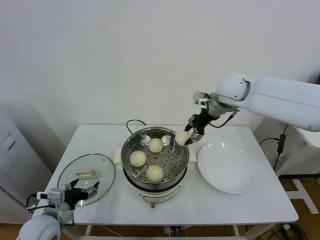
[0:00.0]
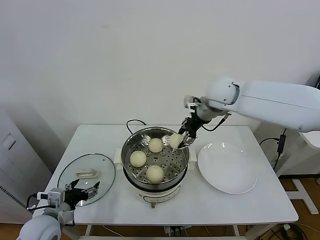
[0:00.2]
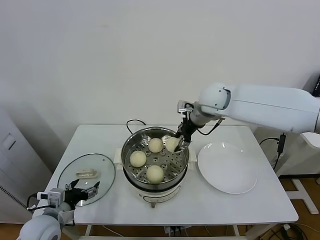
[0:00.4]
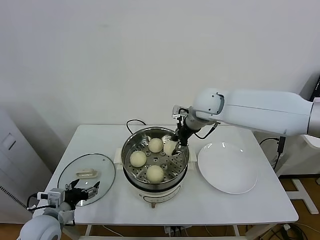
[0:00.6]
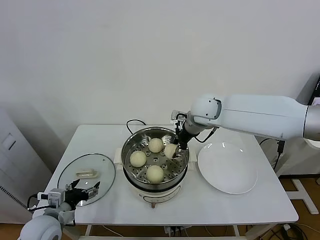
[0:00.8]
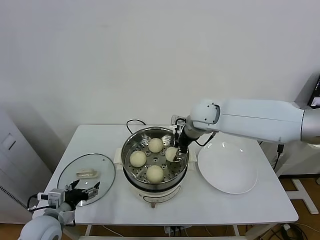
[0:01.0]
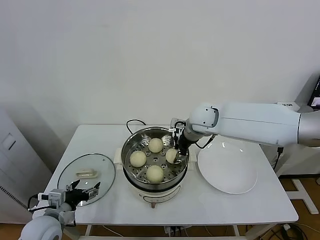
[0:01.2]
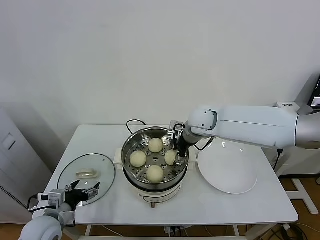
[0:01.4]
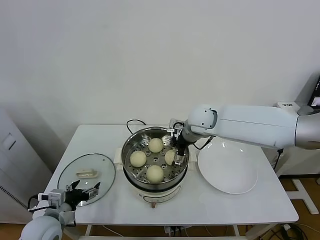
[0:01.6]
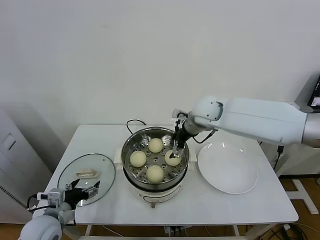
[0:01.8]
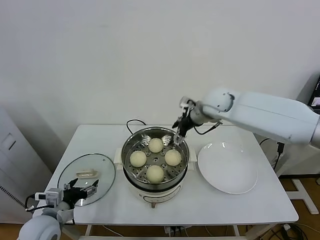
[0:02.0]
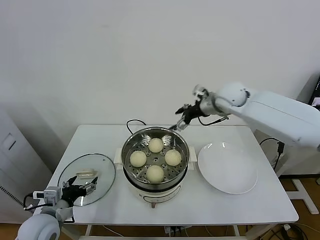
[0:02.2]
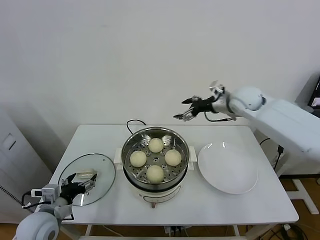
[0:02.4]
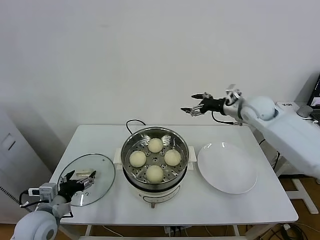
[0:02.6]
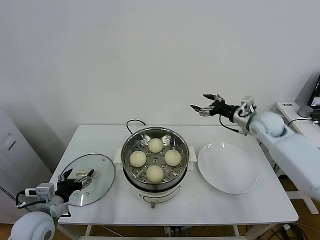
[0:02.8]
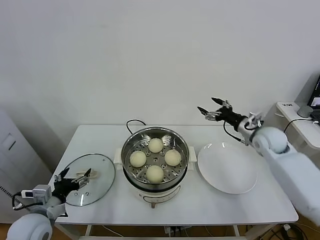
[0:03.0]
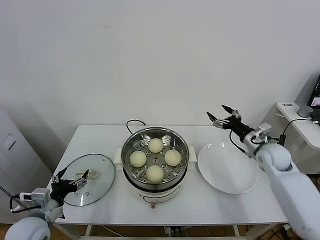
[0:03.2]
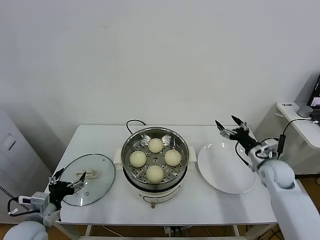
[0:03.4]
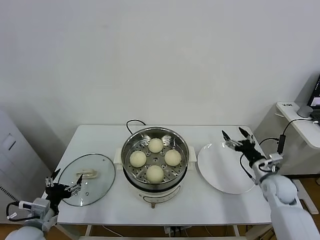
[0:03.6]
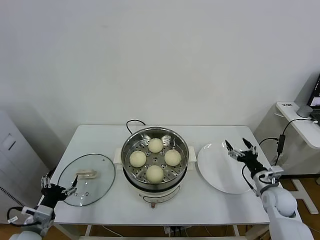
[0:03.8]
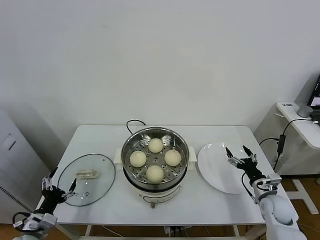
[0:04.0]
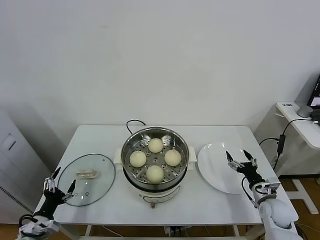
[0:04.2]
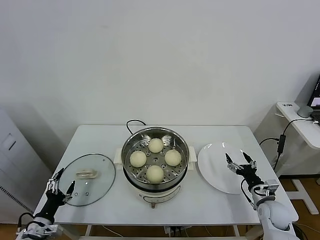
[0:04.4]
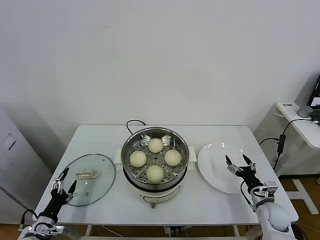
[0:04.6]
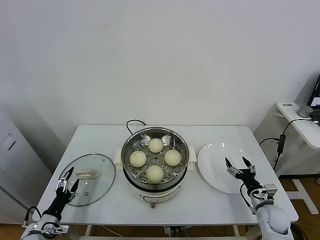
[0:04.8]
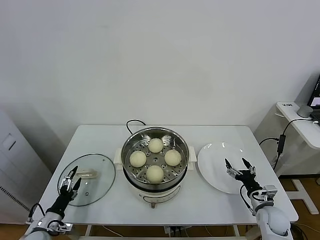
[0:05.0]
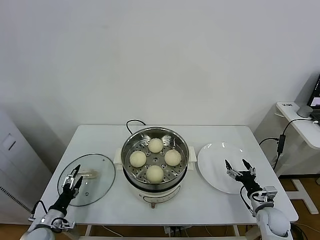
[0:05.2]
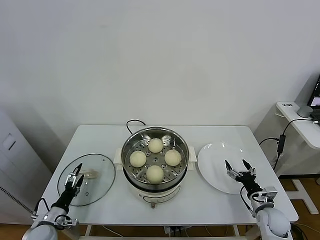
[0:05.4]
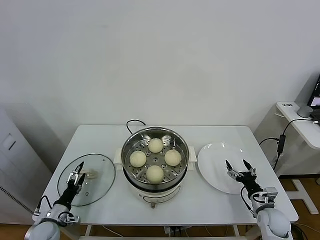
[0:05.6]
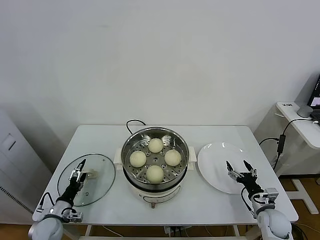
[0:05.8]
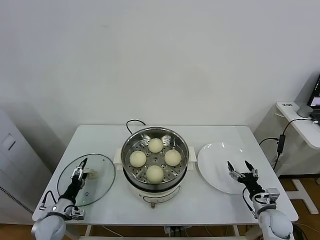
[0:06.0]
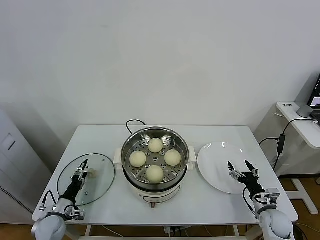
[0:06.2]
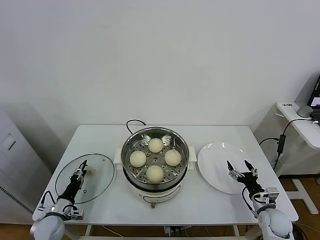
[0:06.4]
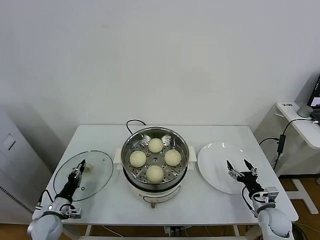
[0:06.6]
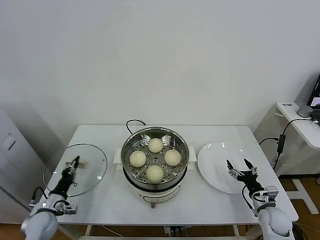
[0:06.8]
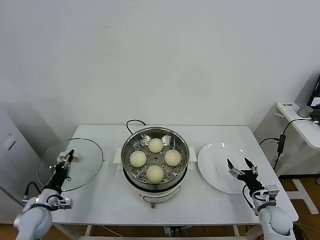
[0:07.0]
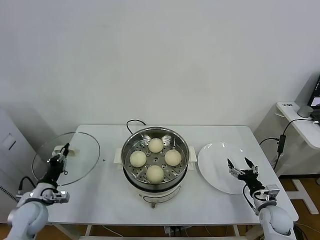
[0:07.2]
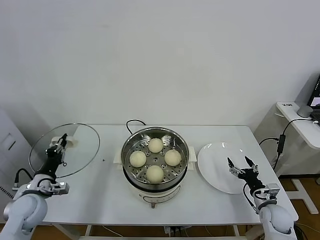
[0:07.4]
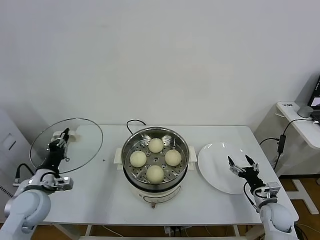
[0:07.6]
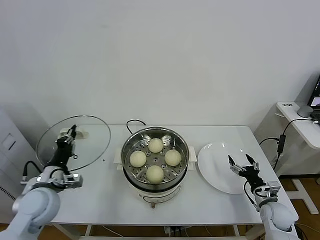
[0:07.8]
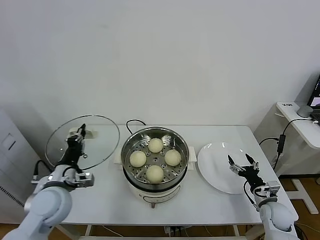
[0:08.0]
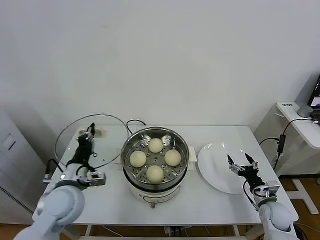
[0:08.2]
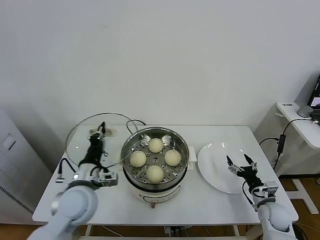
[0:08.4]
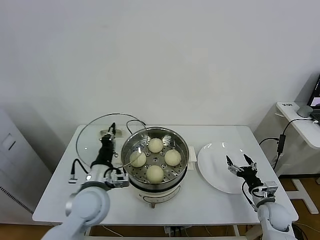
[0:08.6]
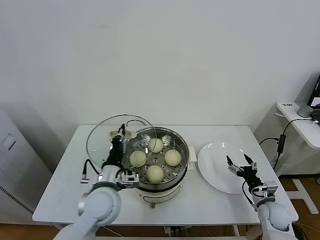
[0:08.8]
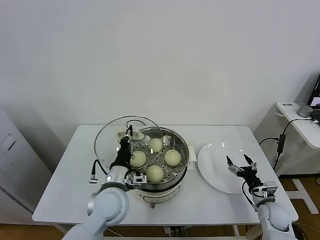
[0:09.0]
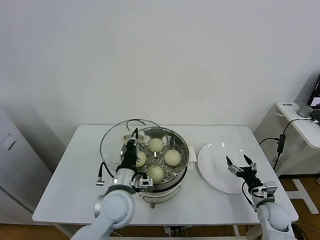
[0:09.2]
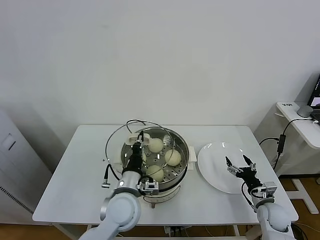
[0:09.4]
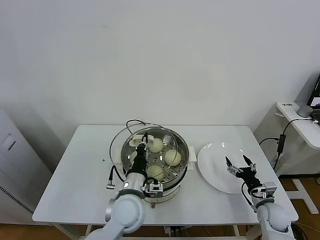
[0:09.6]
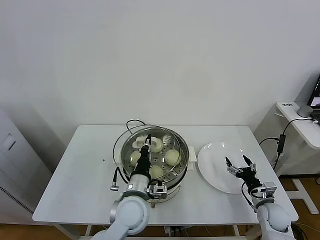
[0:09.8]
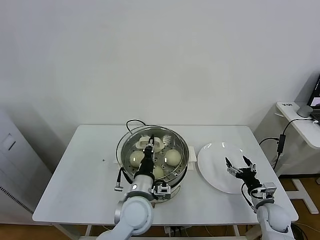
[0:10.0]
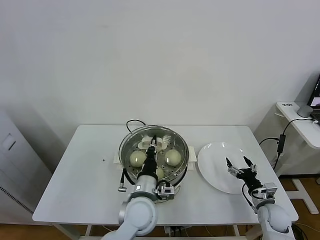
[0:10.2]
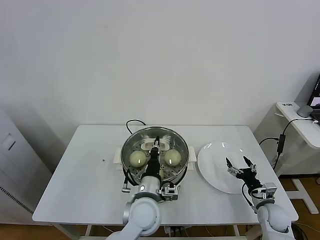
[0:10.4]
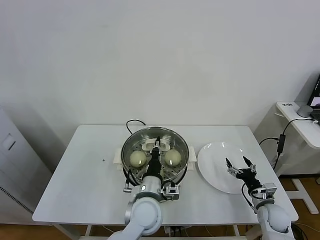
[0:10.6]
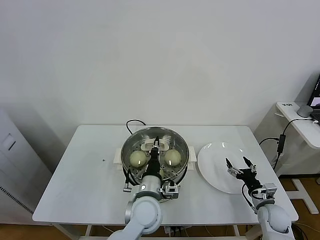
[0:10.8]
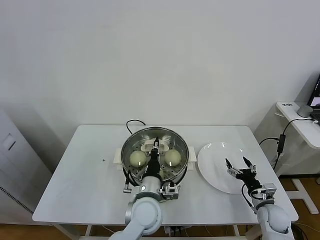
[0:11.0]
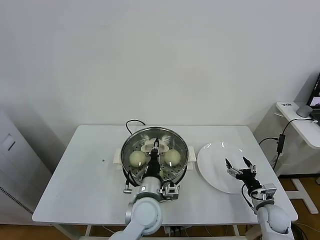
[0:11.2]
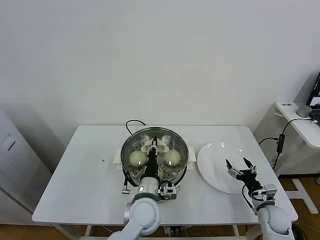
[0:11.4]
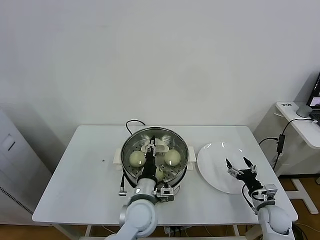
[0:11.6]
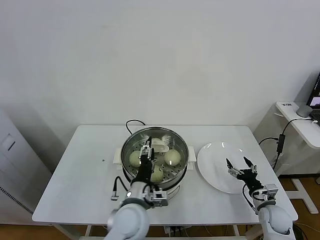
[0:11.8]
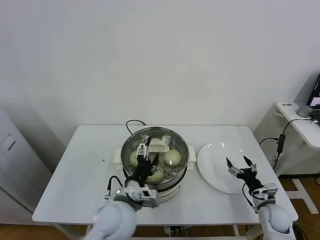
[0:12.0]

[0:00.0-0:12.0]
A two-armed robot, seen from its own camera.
Task of the whole recording: take steamed baozi put them in steamer.
Step, 0:00.0 to 0:01.8: Place the baozi on the steamer with right gripper.
Step, 0:02.0 to 0:07.0: Grasp the pot lid with left gripper.
Step, 0:07.2 to 0:12.0: Place the pot lid on the steamer with left gripper.
0:00.0 to 0:01.6: The right gripper goes roughly 15 cm downward and to the left, and opens up.
0:01.6 to 0:03.0: The right gripper heads to the right, covering approximately 25 cm.
0:03.0 to 0:04.4: The left gripper travels downward and to the left by about 15 cm, while the right gripper moves downward and backward, approximately 30 cm.
0:04.4 to 0:06.0: The left gripper is displaced forward and downward by roughly 10 cm.
0:06.0 to 0:07.6: The left gripper travels upward by roughly 20 cm, and closes its fingers.
0:07.6 to 0:09.0: The left gripper travels to the right by approximately 25 cm.
0:09.0 to 0:10.4: The left gripper heads to the right, covering approximately 10 cm.
0:10.4 to 0:12.0: The left gripper shifts approximately 5 cm to the left, and opens up.

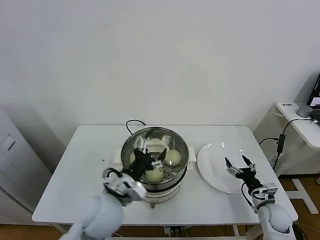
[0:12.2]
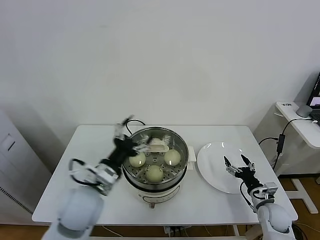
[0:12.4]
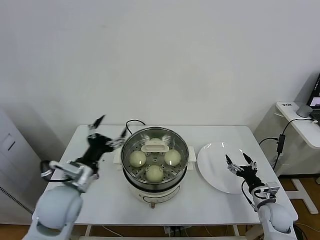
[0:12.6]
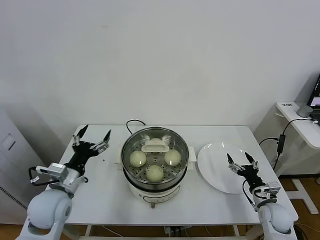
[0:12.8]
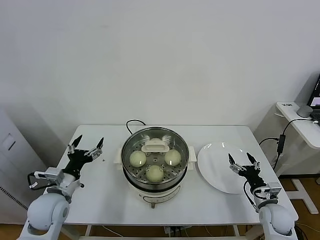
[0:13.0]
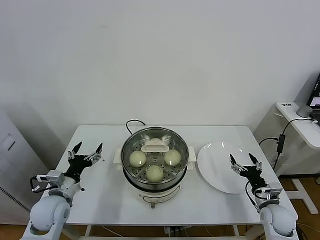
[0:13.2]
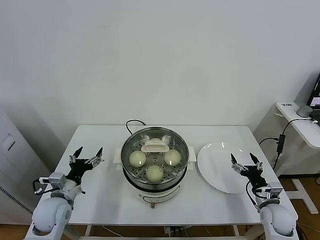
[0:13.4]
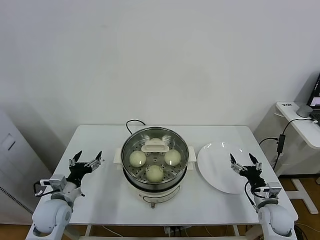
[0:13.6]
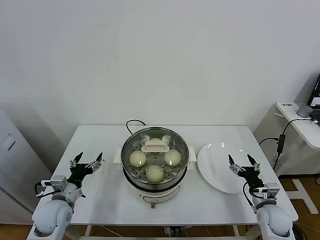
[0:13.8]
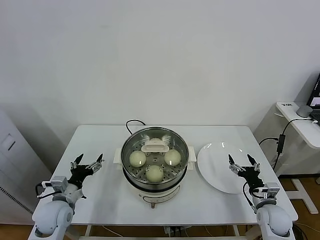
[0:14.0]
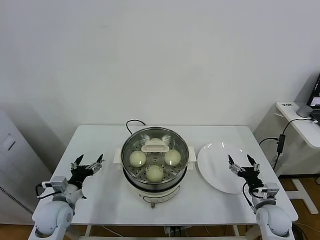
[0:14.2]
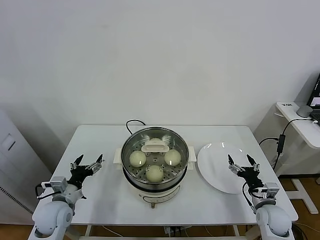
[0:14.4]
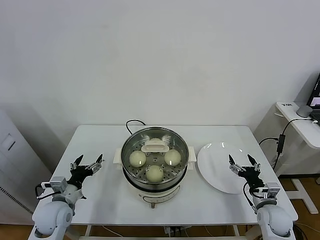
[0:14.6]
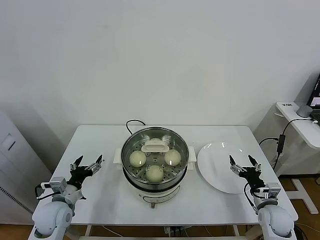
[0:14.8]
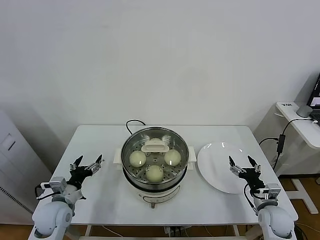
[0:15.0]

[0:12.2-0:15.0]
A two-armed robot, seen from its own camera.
Task of the whole recording: take steamed baozi put them in steamer.
0:12.2 to 0:13.6: The left gripper shifts approximately 25 cm to the left and downward.
0:13.6 to 0:15.0: The grippers move only a little.

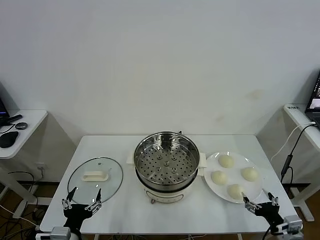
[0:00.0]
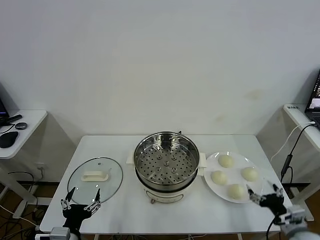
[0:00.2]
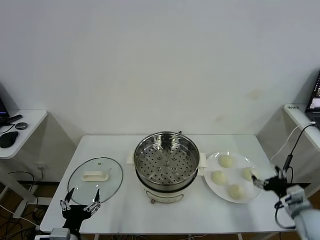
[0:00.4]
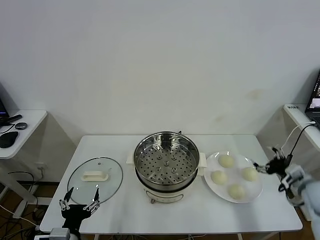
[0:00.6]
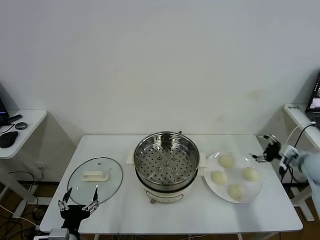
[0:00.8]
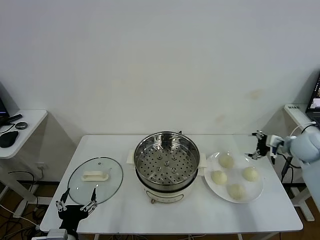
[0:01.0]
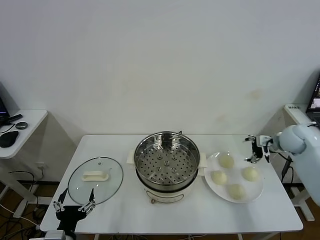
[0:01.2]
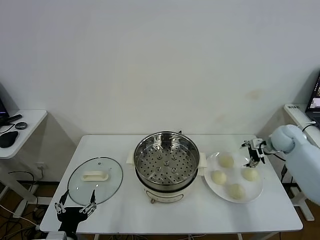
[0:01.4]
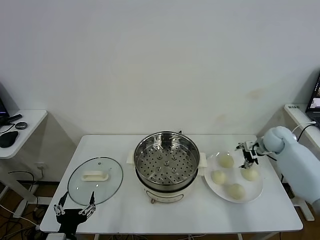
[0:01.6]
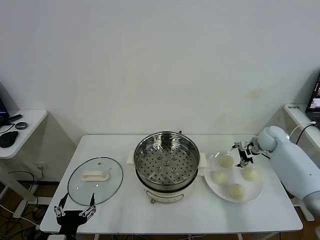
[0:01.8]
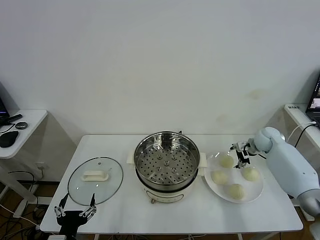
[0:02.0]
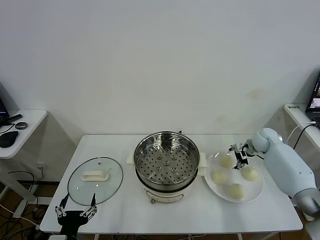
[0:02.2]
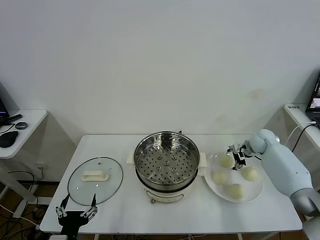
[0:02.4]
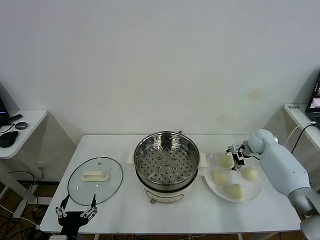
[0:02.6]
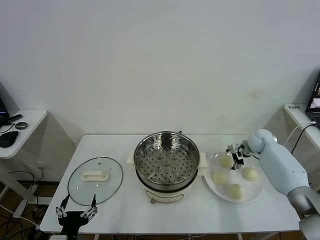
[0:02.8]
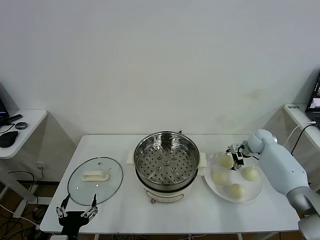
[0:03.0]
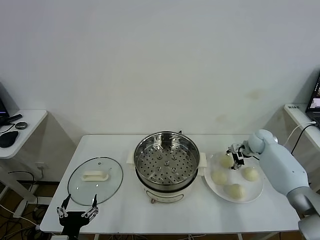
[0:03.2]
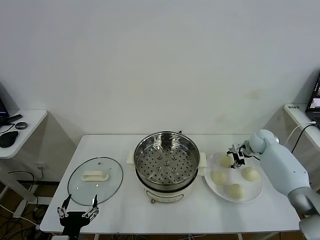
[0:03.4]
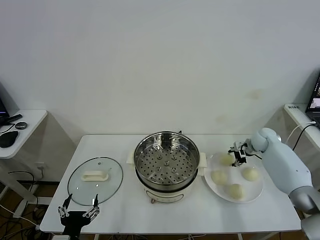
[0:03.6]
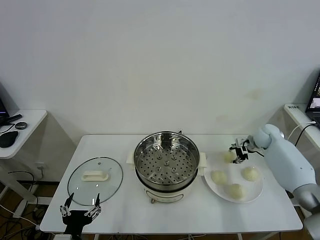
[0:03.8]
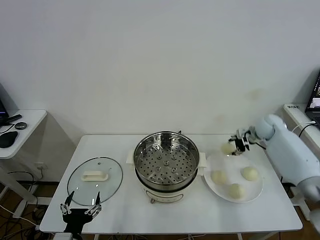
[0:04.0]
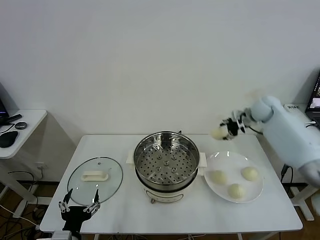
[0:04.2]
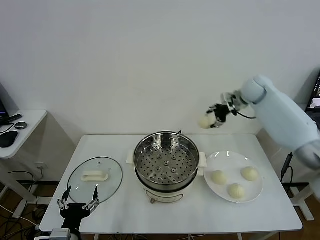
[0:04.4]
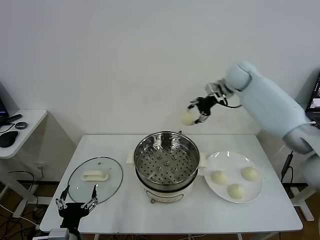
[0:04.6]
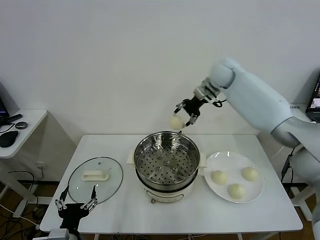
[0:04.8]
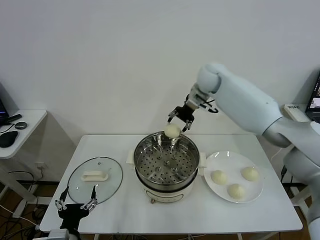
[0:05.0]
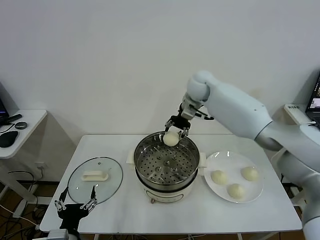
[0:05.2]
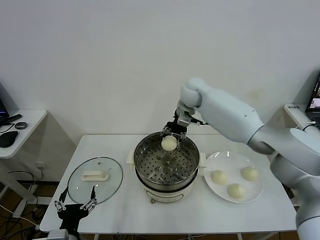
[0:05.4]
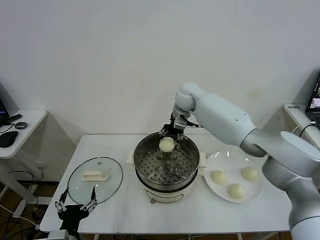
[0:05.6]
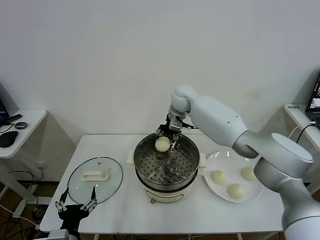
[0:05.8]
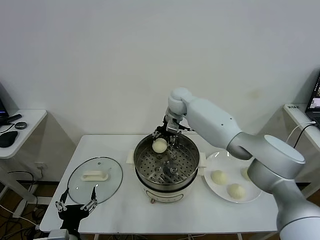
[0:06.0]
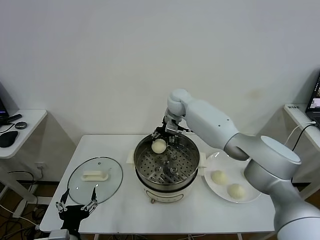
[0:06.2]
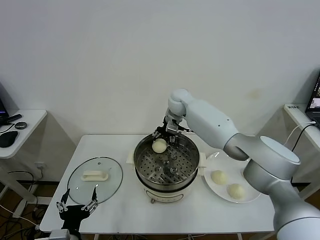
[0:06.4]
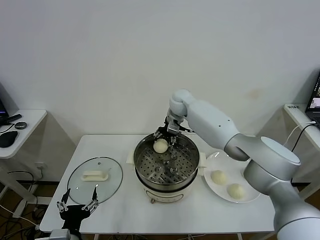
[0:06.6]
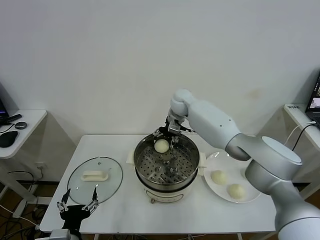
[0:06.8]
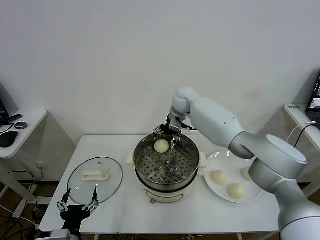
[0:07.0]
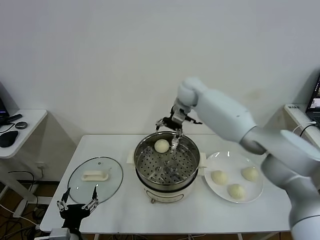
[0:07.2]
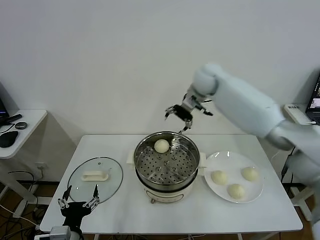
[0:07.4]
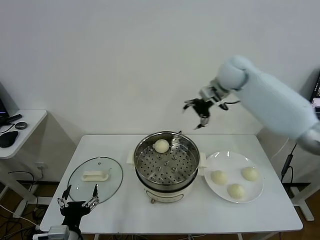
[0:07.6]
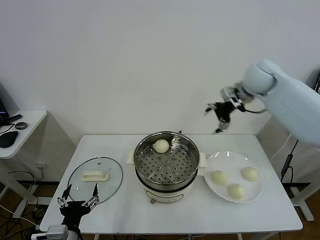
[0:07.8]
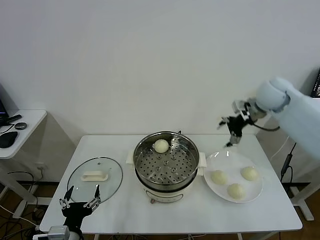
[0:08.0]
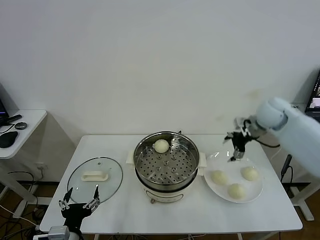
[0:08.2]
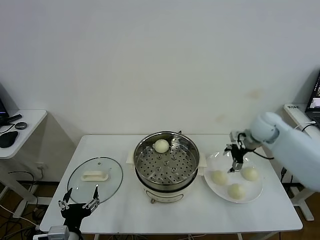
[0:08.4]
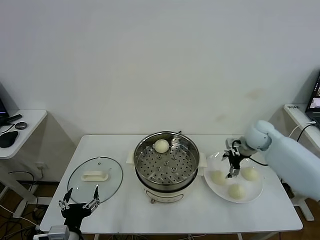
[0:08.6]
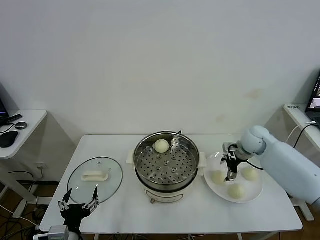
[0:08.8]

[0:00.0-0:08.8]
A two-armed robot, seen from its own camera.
Task of the whole recording: take steamed baozi put them in steamer.
Step, 0:00.0 to 0:03.4: Grasp the baozi in the plate with right gripper.
Step, 0:03.6 to 0:07.0: Place the baozi on the steamer with right gripper.
0:01.4 to 0:03.0: The right gripper shifts approximately 10 cm downward and forward.
0:03.0 to 0:04.4: The right gripper heads upward and to the left, covering about 25 cm, and closes.
0:04.4 to 0:05.8: The right gripper heads to the left, covering roughly 25 cm.
0:05.8 to 0:07.4: The right gripper heads upward and to the right, covering approximately 15 cm, and opens.
0:07.4 to 0:08.8: The right gripper heads downward, to the right and backward, covering roughly 30 cm.
